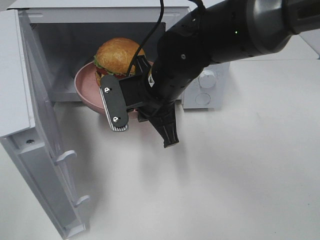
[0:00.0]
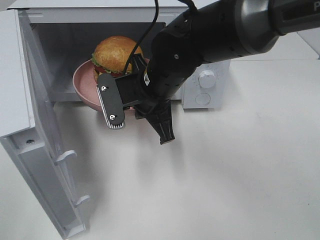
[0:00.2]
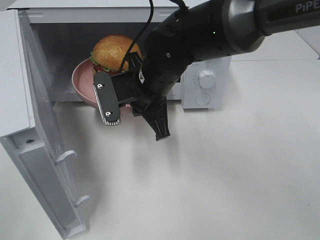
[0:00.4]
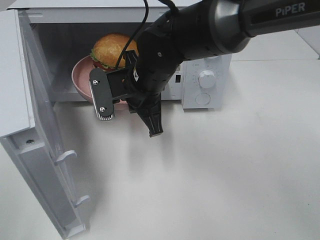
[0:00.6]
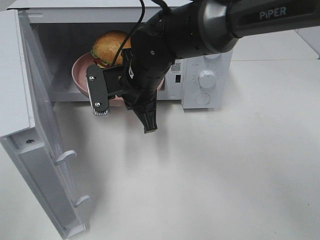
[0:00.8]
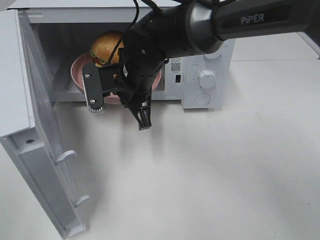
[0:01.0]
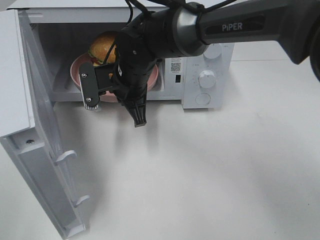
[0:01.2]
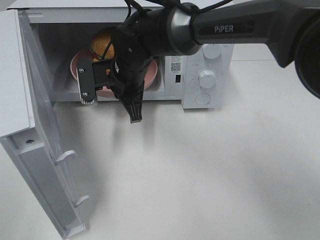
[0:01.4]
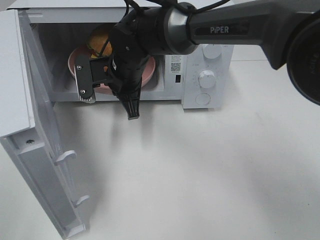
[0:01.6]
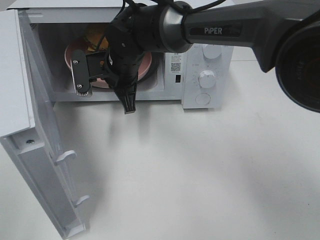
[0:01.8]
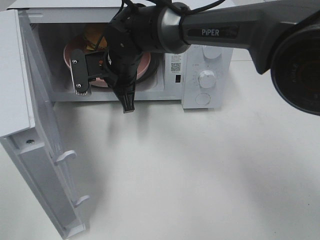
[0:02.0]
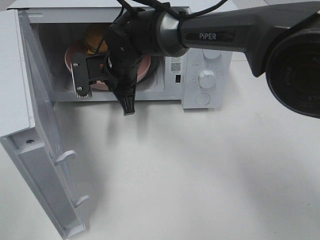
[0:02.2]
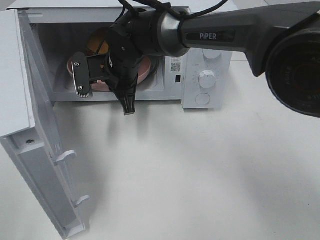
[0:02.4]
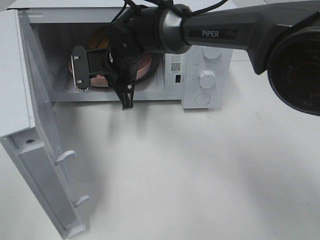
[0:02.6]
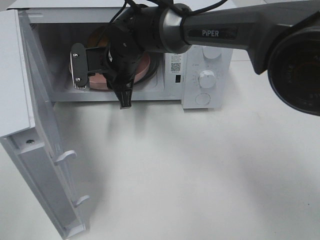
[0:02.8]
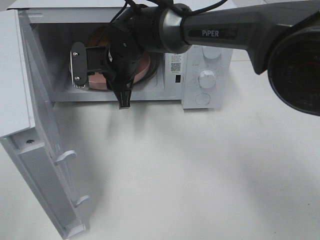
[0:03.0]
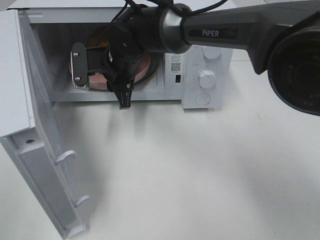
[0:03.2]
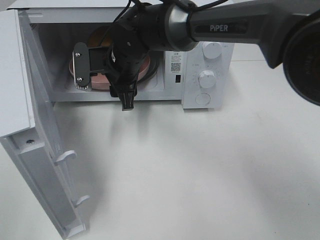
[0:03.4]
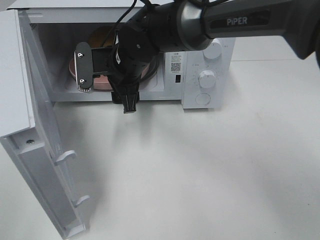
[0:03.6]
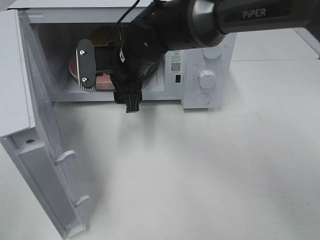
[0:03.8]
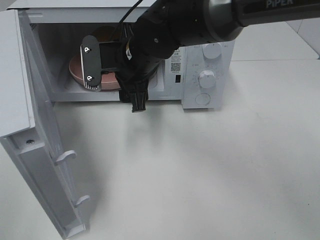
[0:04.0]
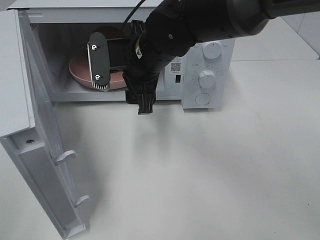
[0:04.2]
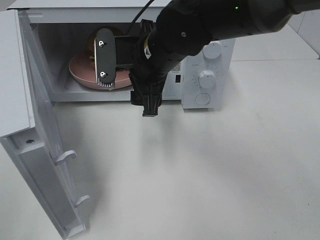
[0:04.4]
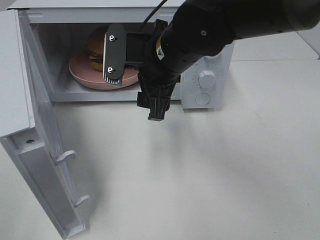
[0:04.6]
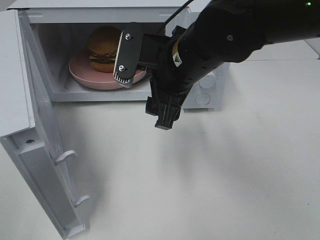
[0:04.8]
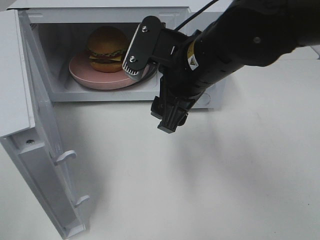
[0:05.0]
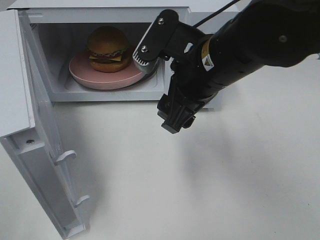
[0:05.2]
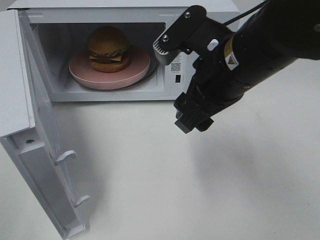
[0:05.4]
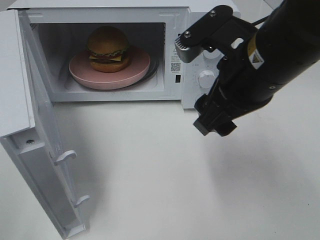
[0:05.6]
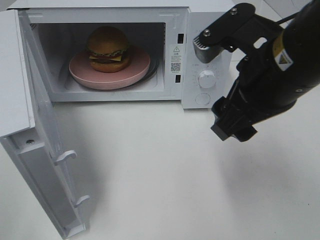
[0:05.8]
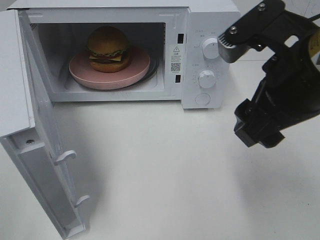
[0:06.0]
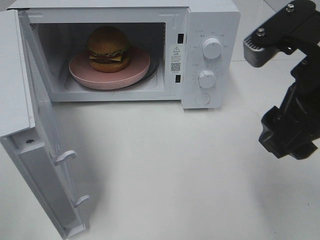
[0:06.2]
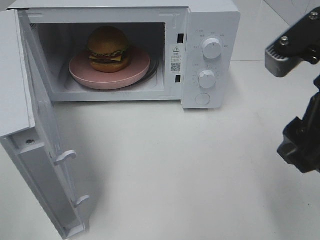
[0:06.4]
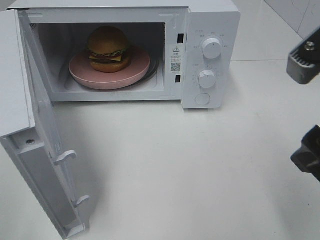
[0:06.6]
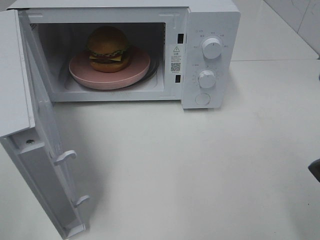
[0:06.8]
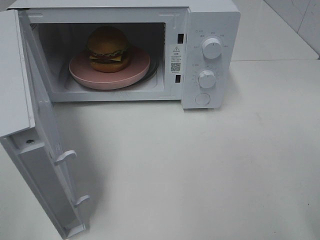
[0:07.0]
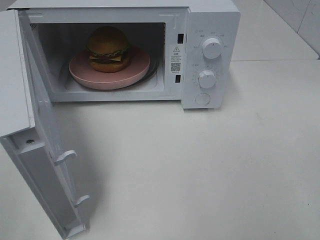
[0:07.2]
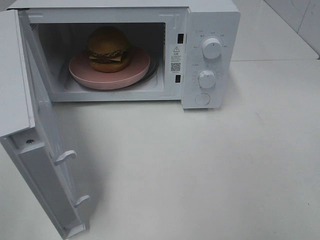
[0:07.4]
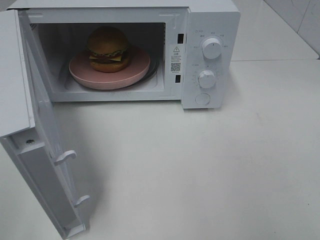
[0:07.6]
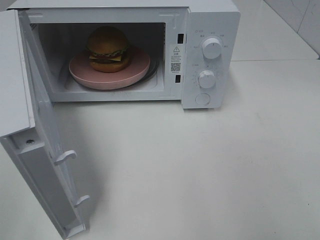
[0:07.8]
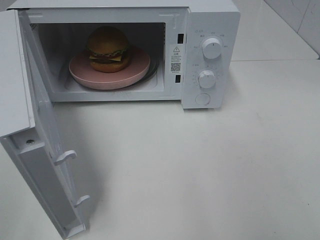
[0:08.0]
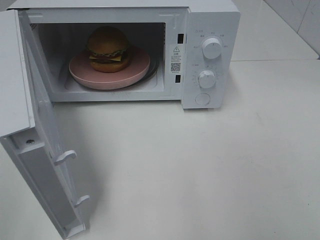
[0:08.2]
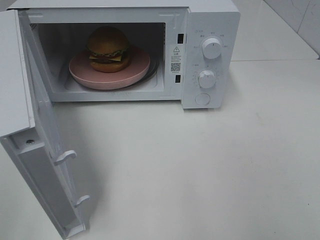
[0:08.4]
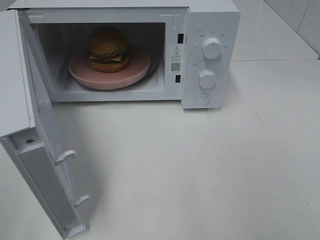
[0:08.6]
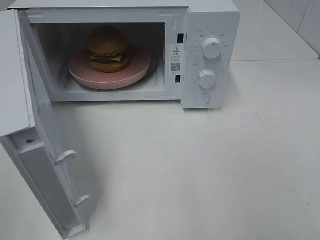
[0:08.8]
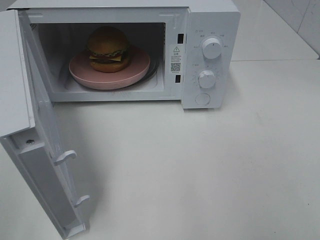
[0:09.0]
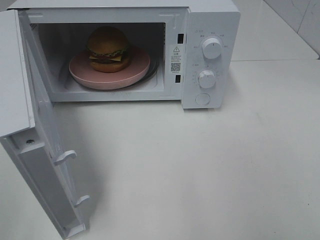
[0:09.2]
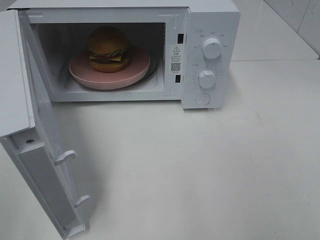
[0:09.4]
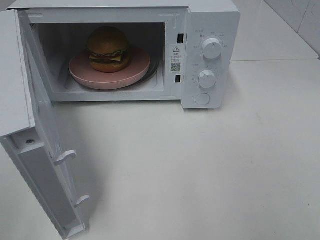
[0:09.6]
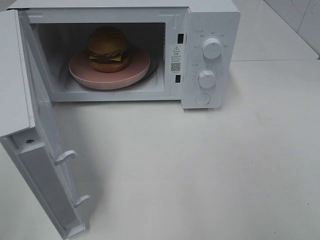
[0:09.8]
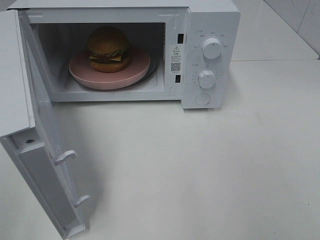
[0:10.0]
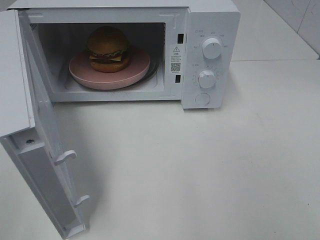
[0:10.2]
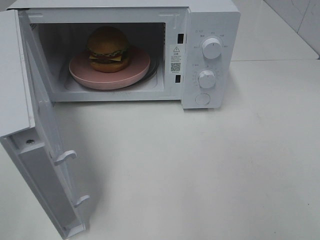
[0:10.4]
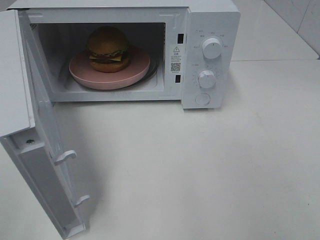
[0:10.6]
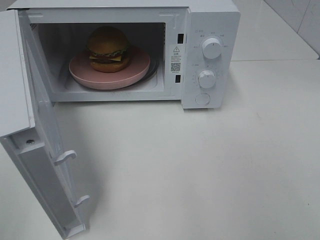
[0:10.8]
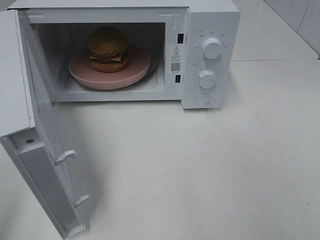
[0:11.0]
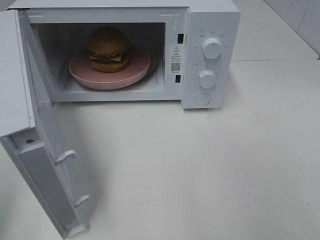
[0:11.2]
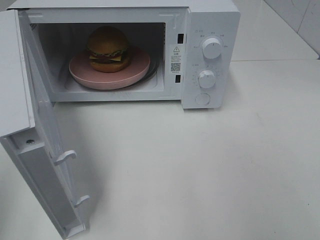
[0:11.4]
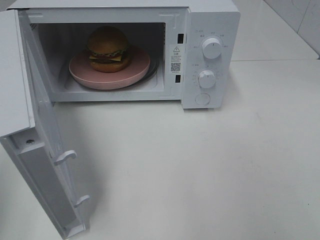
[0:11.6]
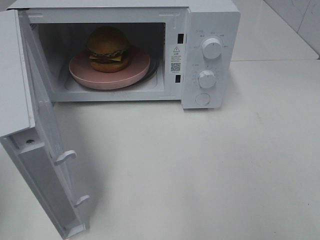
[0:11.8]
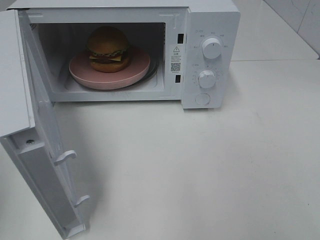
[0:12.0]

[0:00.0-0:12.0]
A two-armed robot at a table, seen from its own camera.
Task of the whole recording: Heat the burger.
Step, 0:00.0 to 0:02.6: Right hand: place the plate in the microwave.
0:00.0 to 0:01.6: The right gripper heads forward and to the left, covering approximately 10 cm.
0:01.6 to 0:03.0: The right gripper opens its fingers.
0:03.0 to 0:04.4: The right gripper goes roughly 10 cm backward, to the right and upward, and opens.
0:04.4 to 0:06.0: The right gripper shifts roughly 20 cm to the right, backward and upward.
0:06.0 to 0:07.6: The right gripper goes roughly 20 cm to the right and backward.
0:09.0 to 0:10.4: Both grippers stay about where they are.

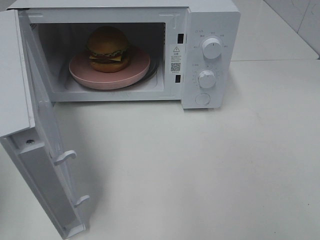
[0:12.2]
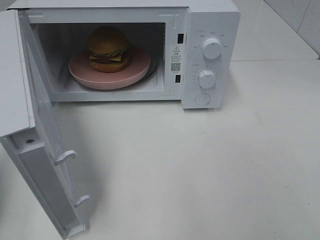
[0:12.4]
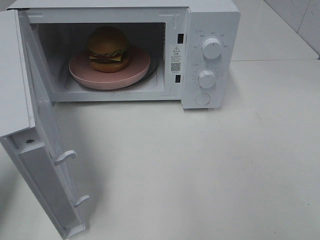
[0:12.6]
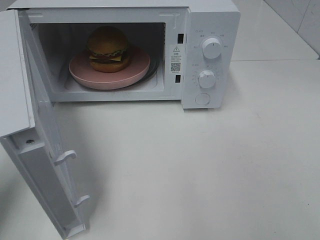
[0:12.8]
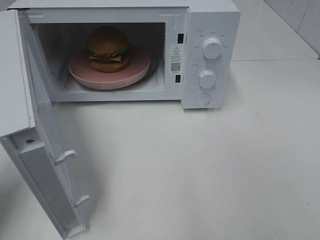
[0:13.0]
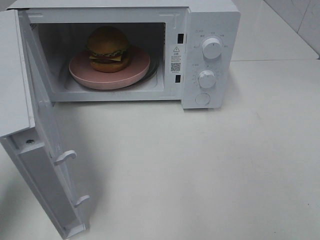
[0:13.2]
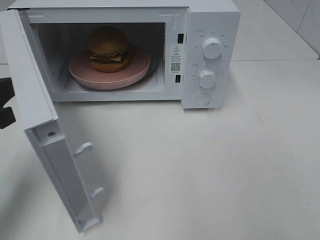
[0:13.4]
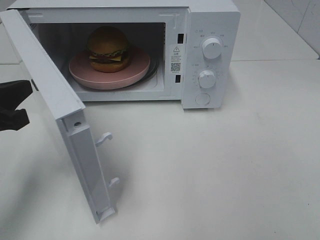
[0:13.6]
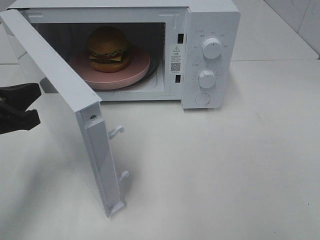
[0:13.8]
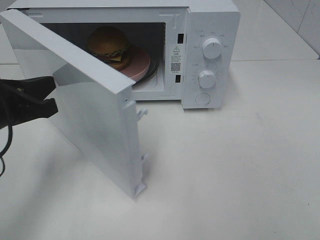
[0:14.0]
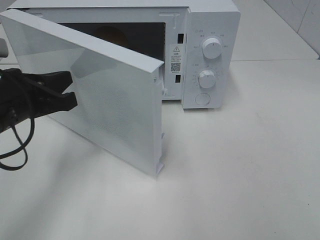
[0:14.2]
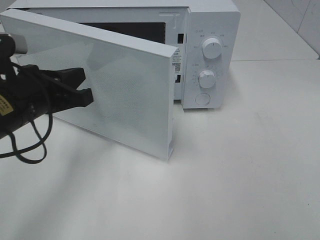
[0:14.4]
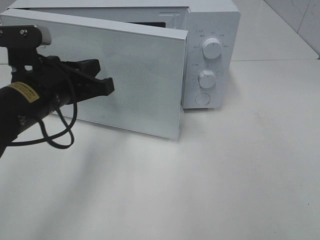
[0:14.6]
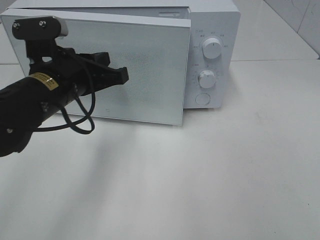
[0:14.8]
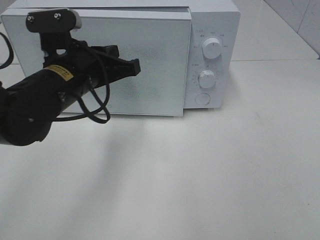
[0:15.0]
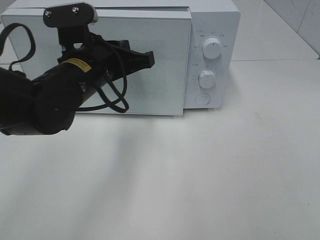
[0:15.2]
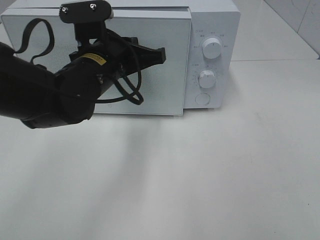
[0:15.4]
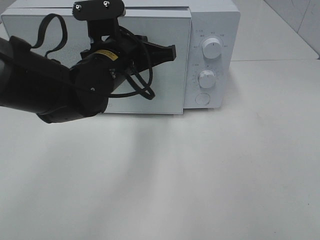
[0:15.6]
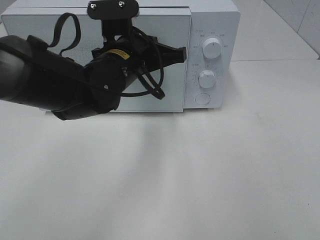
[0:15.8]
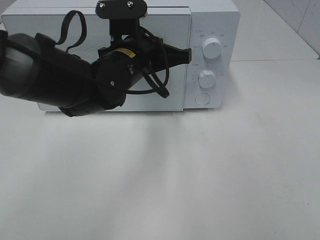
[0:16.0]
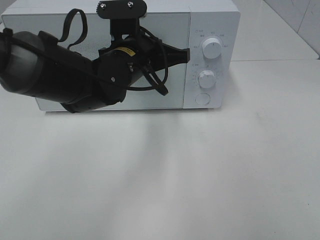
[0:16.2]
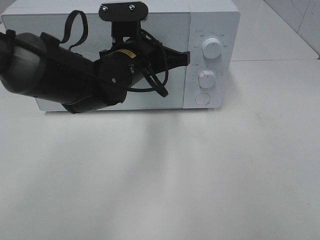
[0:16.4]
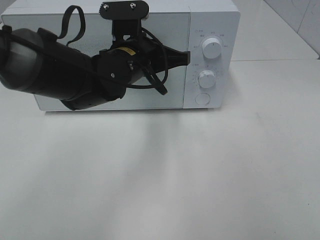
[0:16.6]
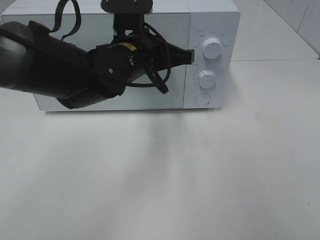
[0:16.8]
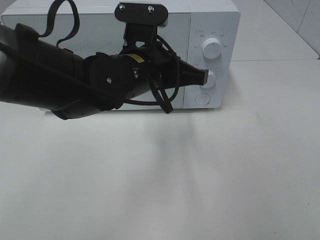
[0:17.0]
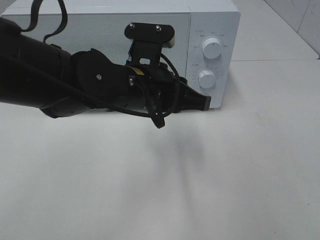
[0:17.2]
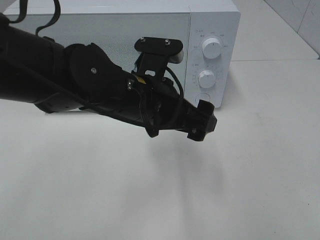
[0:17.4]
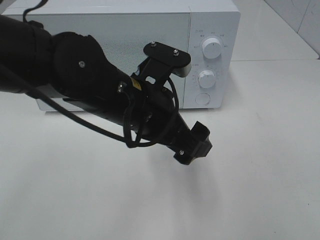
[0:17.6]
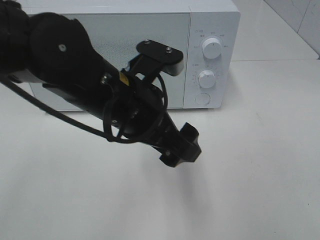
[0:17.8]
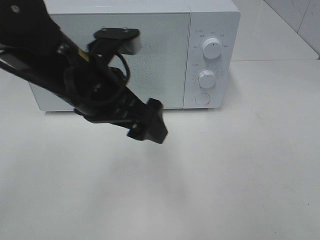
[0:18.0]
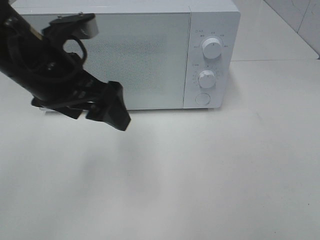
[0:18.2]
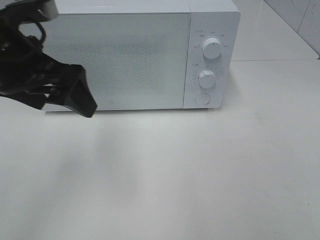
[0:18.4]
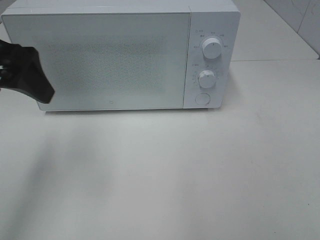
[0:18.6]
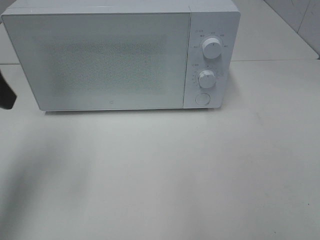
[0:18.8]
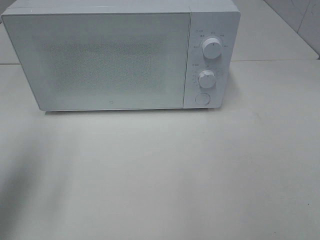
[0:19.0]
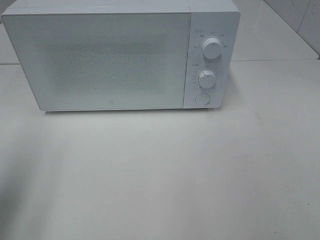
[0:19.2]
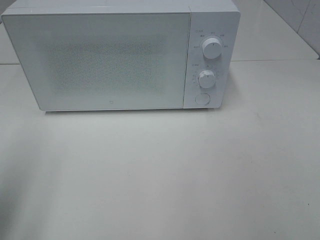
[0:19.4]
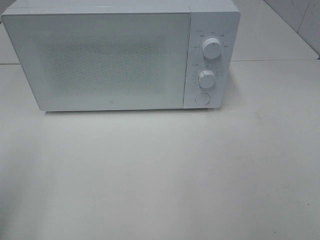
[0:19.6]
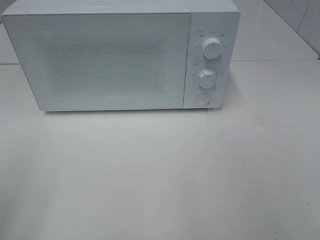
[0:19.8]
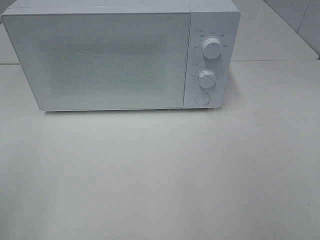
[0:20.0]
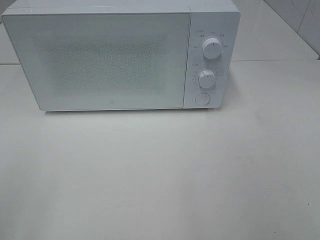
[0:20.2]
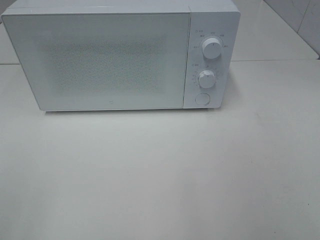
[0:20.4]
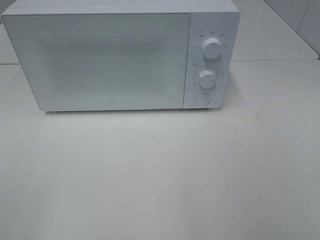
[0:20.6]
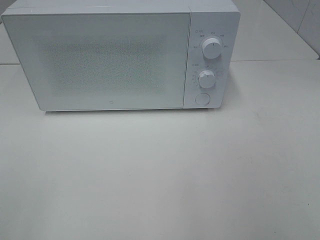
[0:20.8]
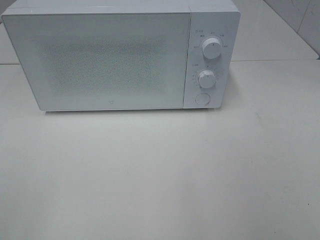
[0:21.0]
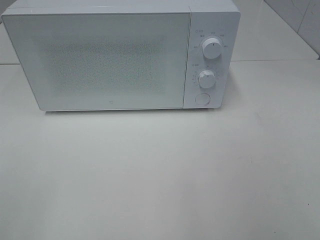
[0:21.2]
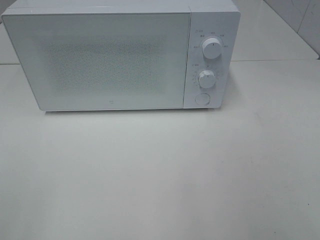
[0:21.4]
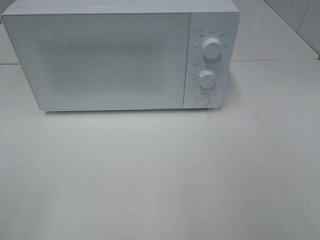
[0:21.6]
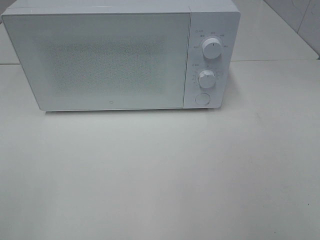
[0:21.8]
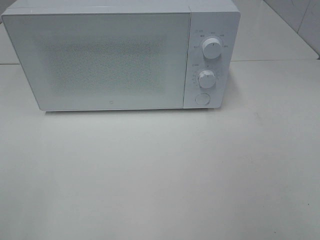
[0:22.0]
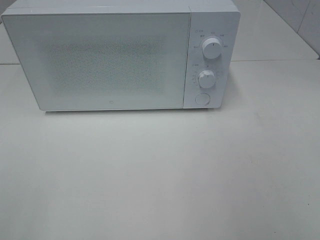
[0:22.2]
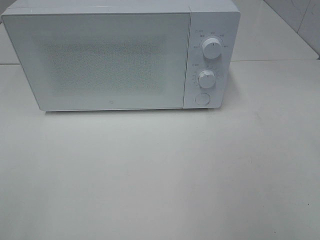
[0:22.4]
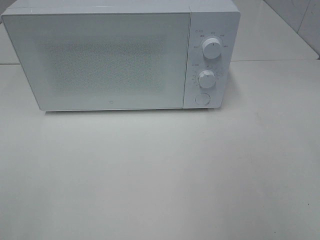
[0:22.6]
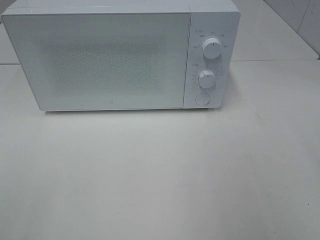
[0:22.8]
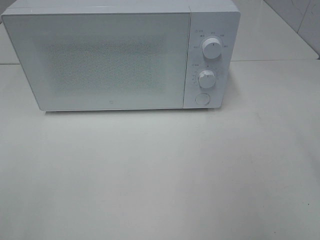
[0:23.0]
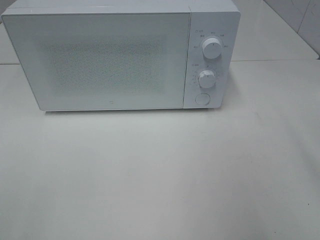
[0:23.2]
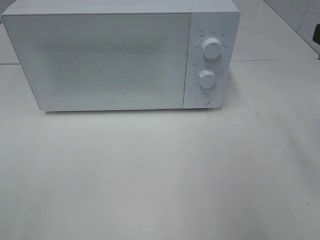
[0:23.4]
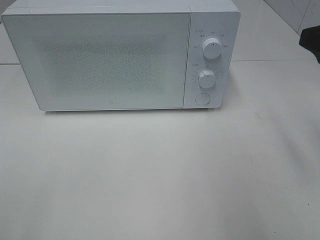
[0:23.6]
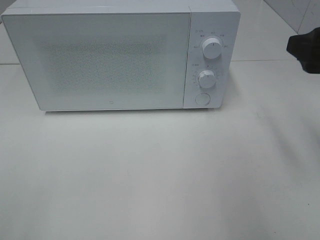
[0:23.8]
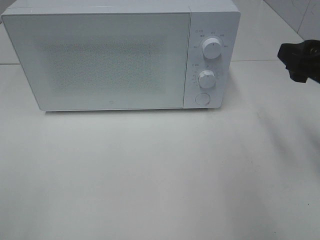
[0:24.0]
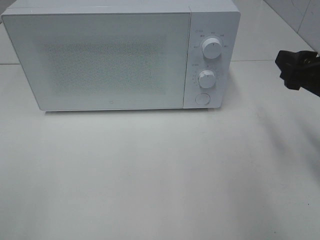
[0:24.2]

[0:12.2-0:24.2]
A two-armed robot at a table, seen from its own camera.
Task of the whole recording: Heat the burger.
Step, 0:12.2 to 0:16.8: Left hand: close the microwave door.
0:12.2 to 0:13.8: The left gripper travels to the right, forward and downward by some 15 cm.
0:13.8 to 0:15.2: The left gripper travels to the right and forward by about 20 cm.
0:15.2 to 0:16.6: The left gripper heads to the right, covering some 5 cm.
0:16.6 to 0:18.2: The left gripper is displaced to the left, backward and upward by approximately 15 cm, and opens up.
0:18.2 to 0:19.8: The left gripper shifts approximately 25 cm backward and to the left.
0:22.6 to 0:24.2: The right gripper is displaced forward and downward by about 15 cm.
